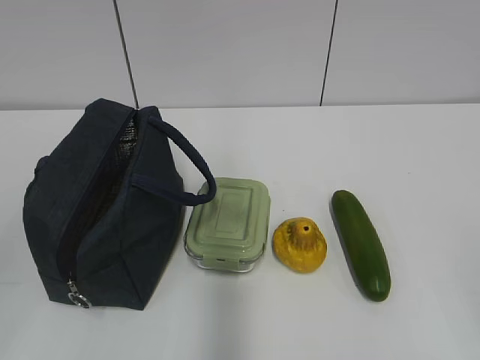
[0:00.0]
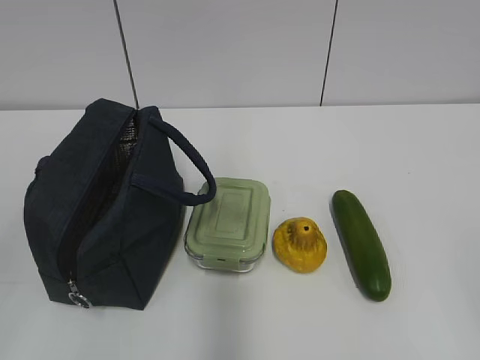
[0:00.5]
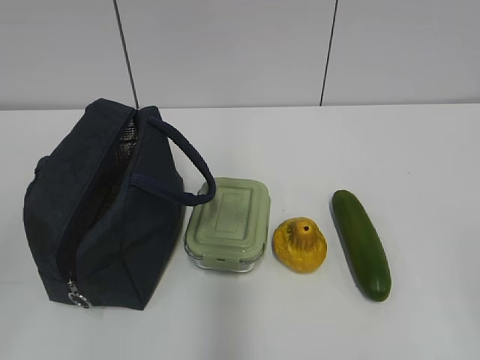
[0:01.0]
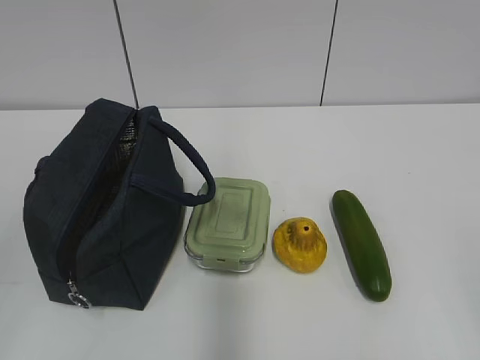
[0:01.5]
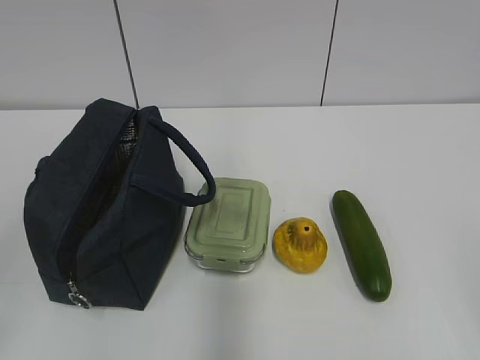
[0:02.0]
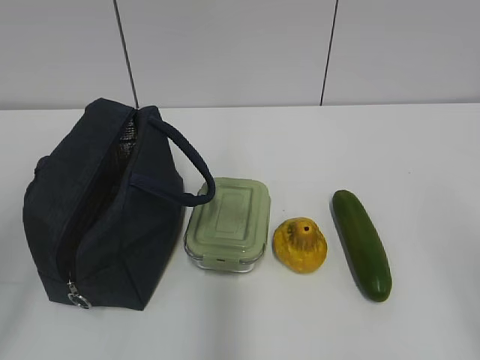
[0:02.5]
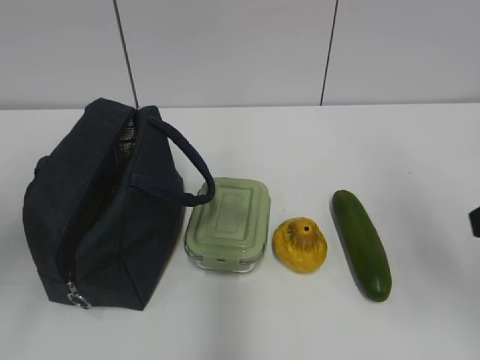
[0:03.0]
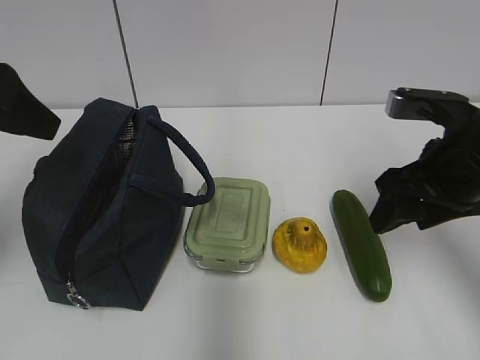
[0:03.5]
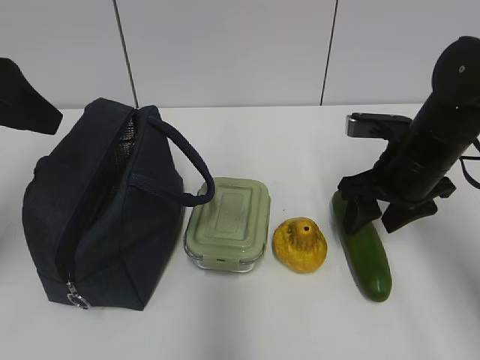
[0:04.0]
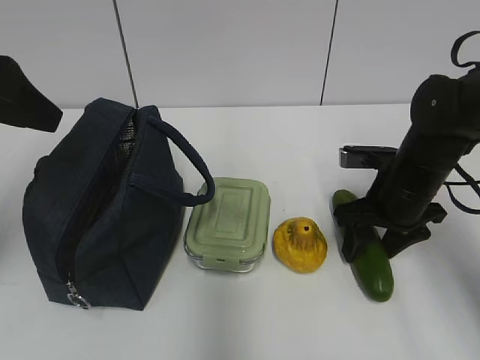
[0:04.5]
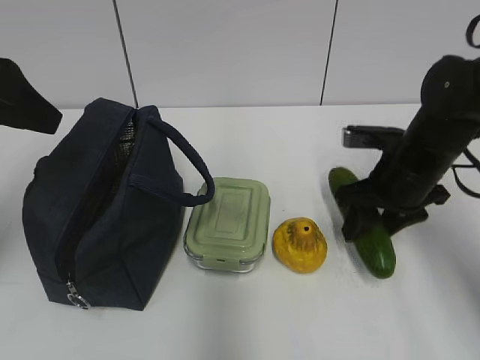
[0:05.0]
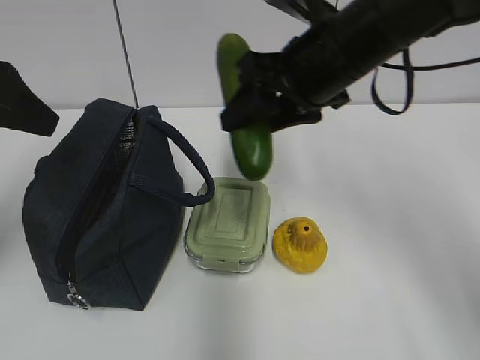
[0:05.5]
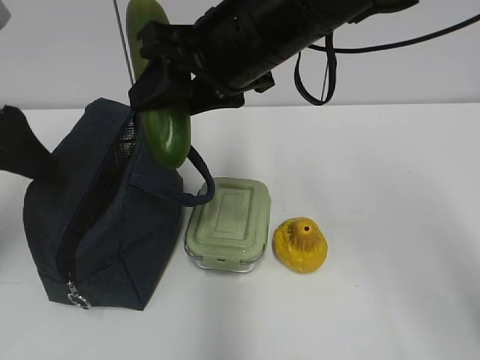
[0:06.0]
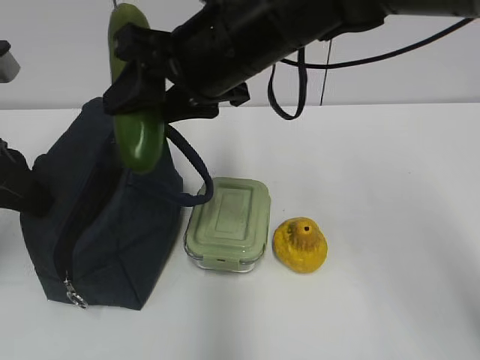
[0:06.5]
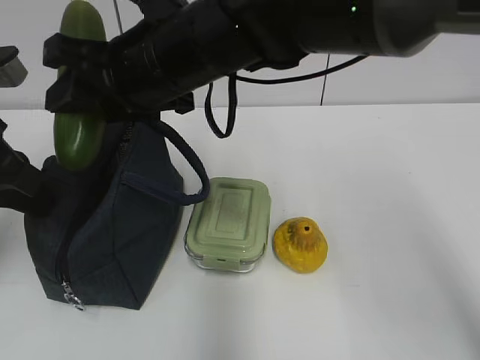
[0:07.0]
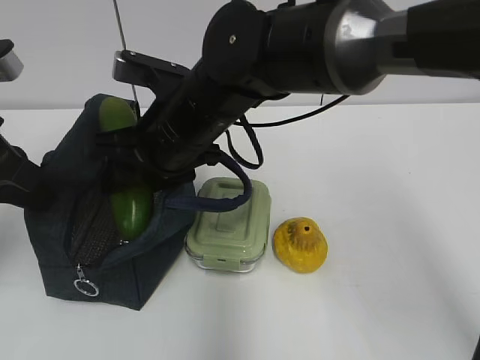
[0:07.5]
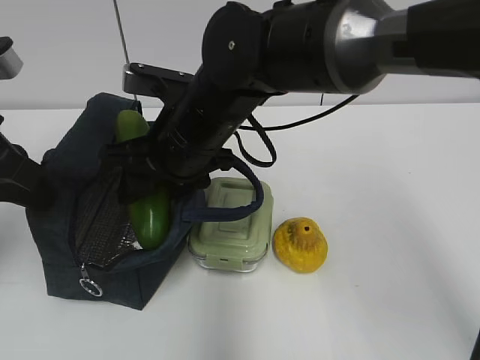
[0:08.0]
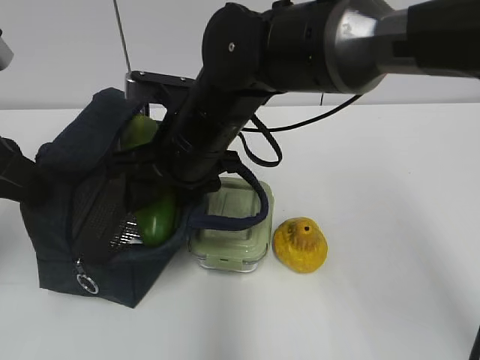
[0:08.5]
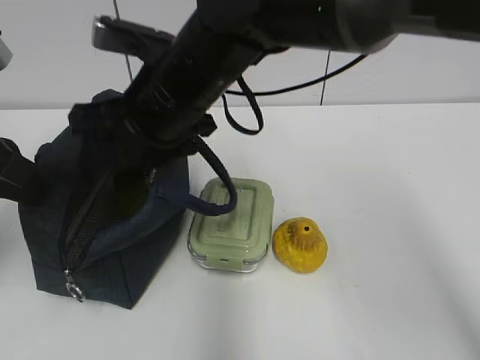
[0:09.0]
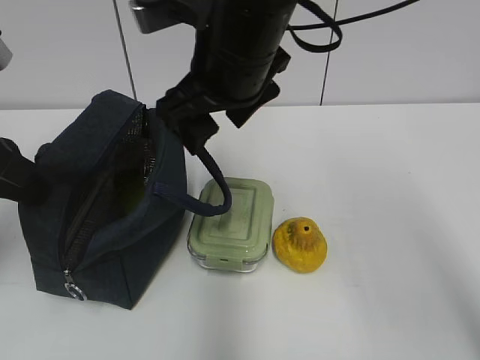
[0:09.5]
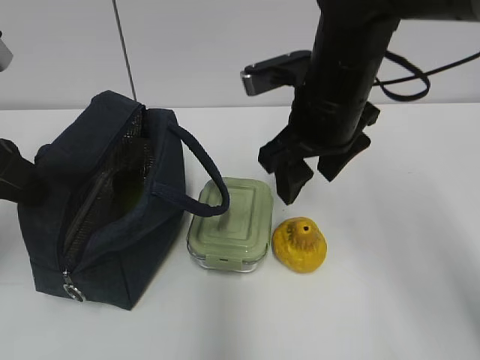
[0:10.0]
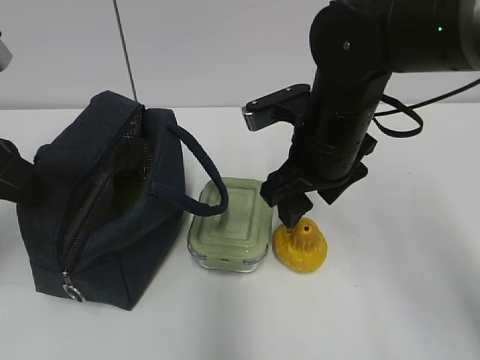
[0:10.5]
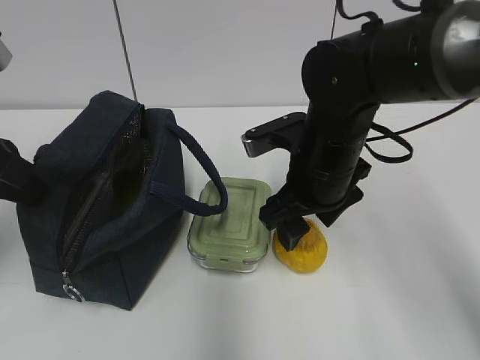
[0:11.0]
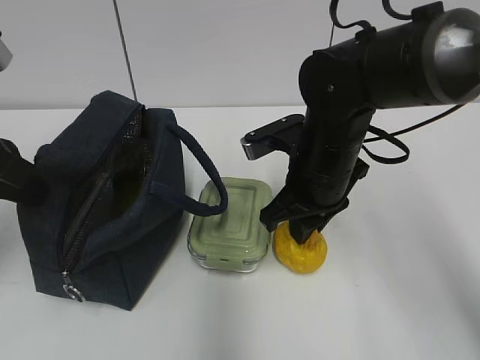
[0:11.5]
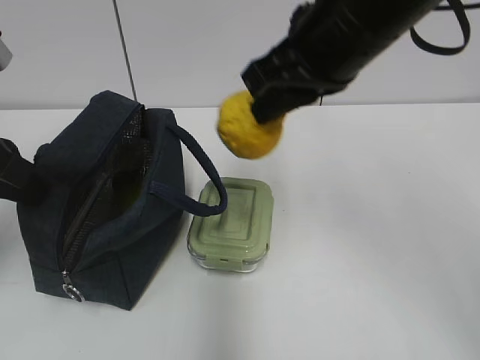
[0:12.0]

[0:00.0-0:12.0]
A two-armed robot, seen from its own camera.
Step, 0.0 to 4.5 s: Grab the cucumber with your right hand.
Step, 5.0 to 7.0 s: Grab the lunch bag with your right hand.
Step, 7.5 to 8.5 s: Place it into the bag with your right hand.
Step, 9.5 to 11.0 s: Grab the pear with your right hand.
2.0 to 4.0 s: Both grippers travel together forward, about 30 cm.
4.0 to 6.0 s: The right gripper travels to the left and upward by about 25 cm.
6.0 to 8.0 s: The right gripper is displaced downward and to the left by some 10 cm. The left gripper closes its fingers.
8.0 to 10.0 s: The right gripper heads to the right, covering roughly 10 cm.
10.0 to 12.0 s: The right gripper is displaced upward by about 10 cm, and closes up.

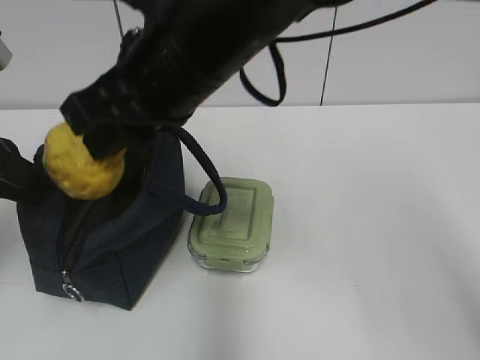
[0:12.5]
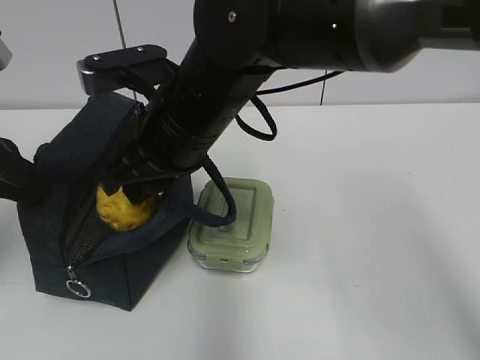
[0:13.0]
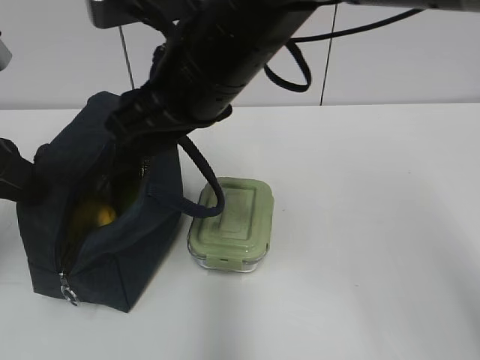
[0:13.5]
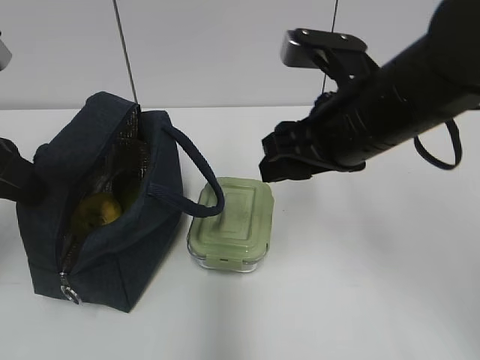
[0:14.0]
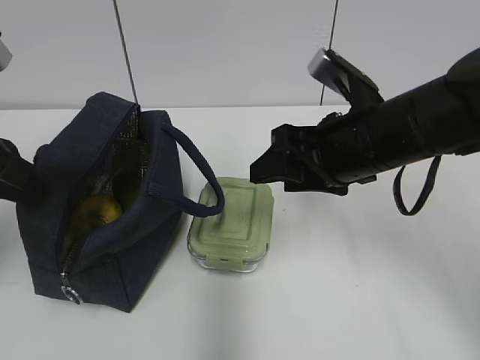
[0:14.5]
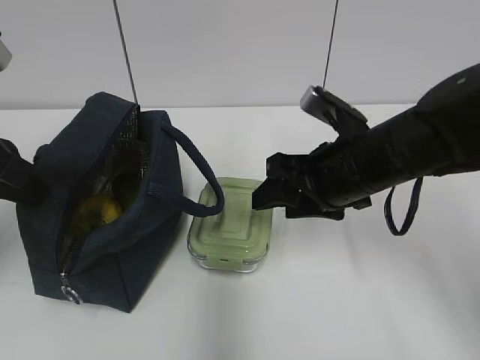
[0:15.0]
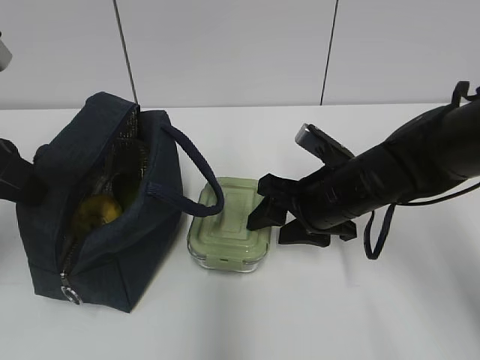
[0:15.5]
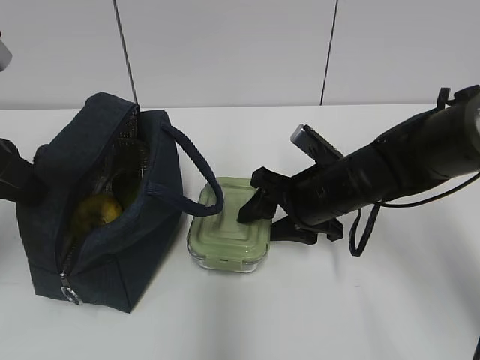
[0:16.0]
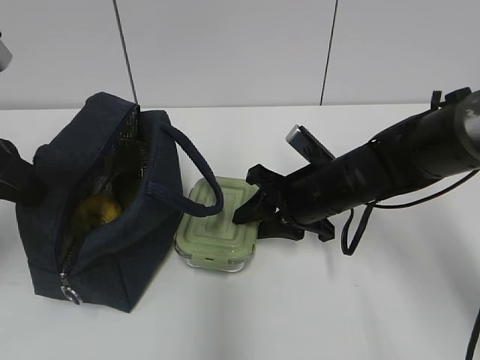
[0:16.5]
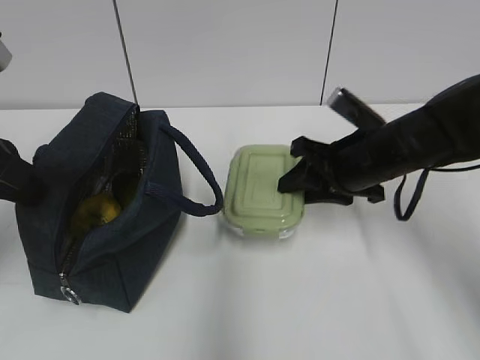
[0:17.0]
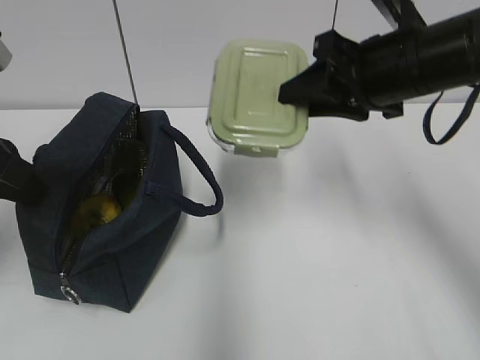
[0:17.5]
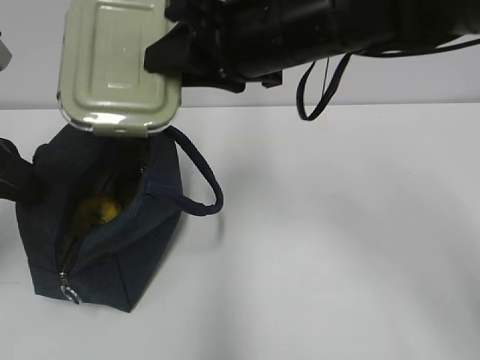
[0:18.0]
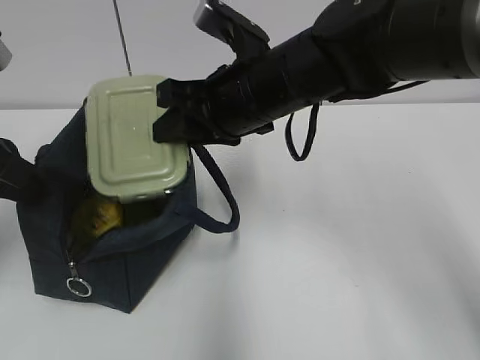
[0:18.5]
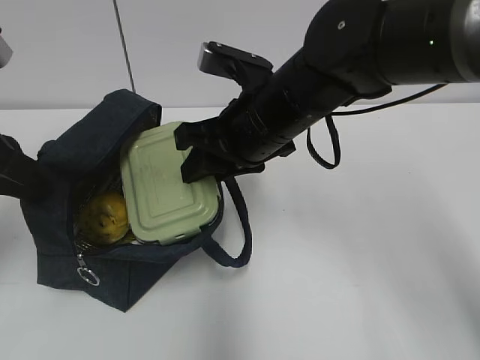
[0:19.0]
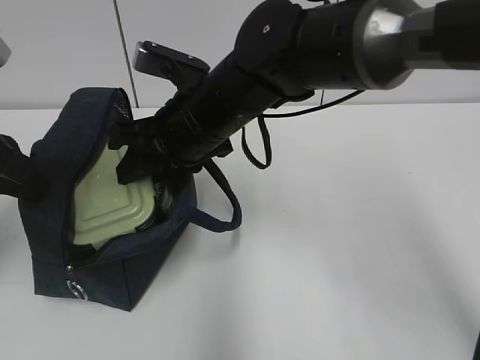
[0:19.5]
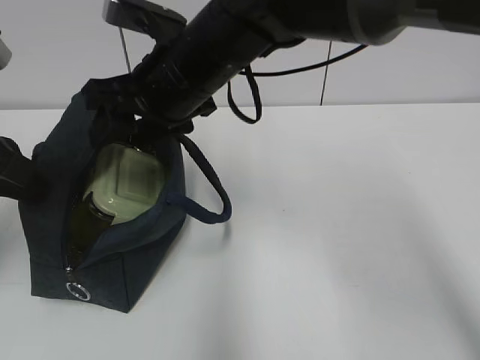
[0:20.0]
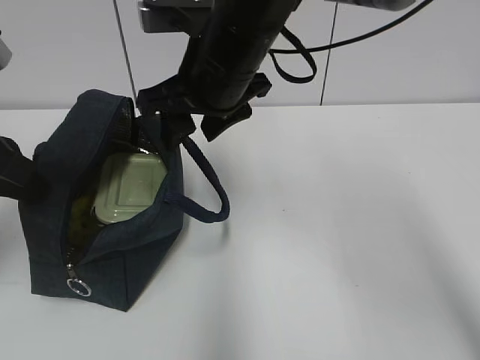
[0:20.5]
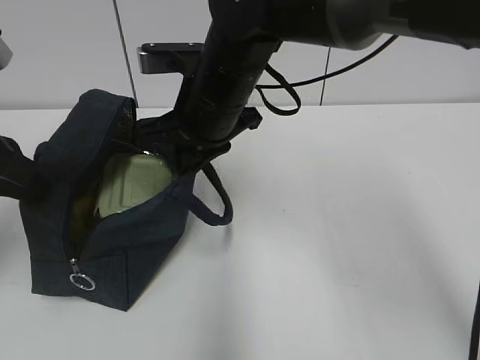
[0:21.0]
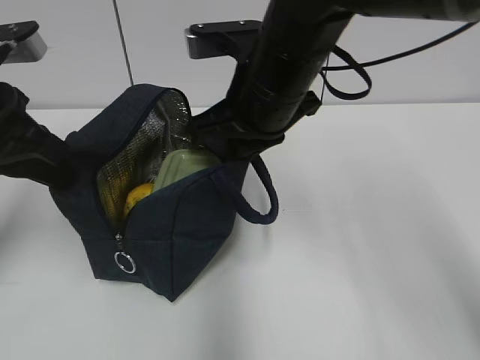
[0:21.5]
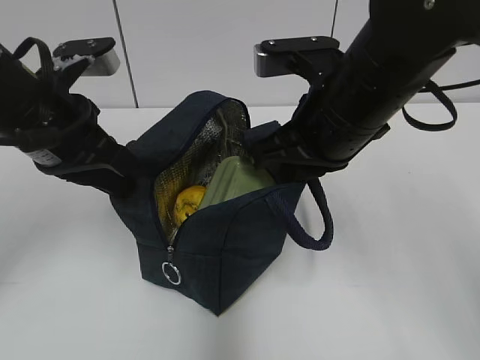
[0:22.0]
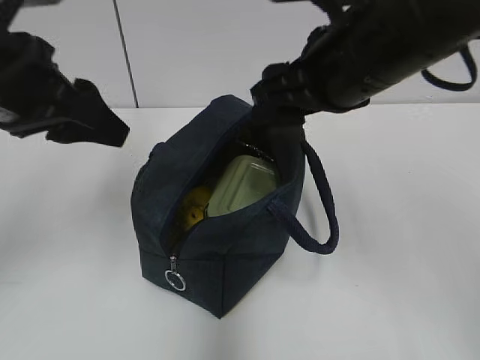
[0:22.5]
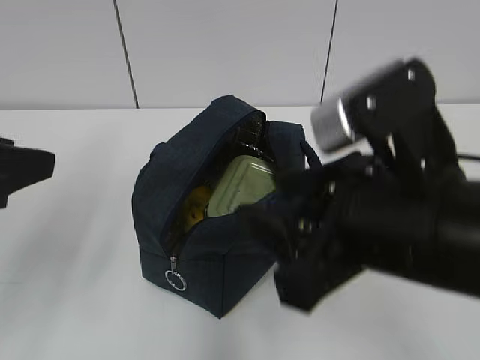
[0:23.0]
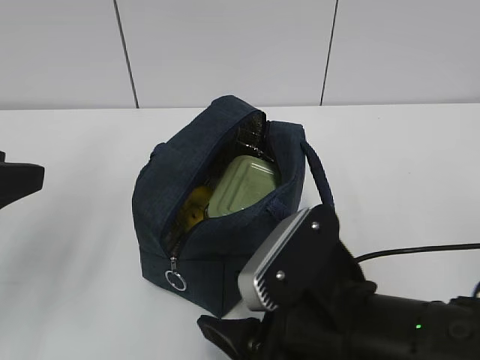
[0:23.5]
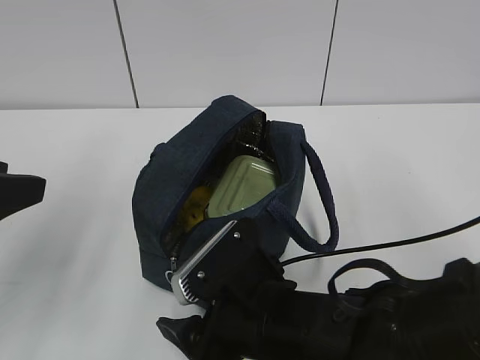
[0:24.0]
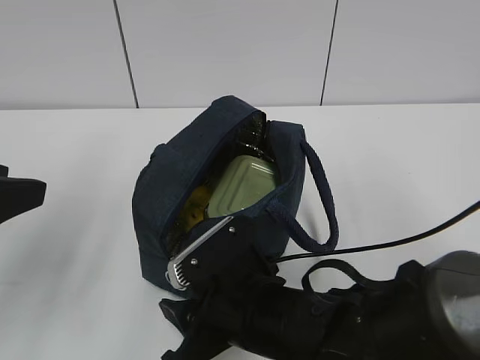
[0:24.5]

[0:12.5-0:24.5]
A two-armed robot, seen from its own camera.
Step, 14.0 to 16.5 s: Grab the lunch box with your right hand.
Step, 17.0 to 20.0 s: Place it into the bag with your right hand.
Step, 20.5 to 21.0 s: Grab the lunch bag with your right hand.
12.5 to 14.5 s: The right gripper goes approximately 15 cm to the right and downward, and opens its fingers.
14.5 to 16.5 s: The right gripper travels downward by about 10 cm.
16.5 to 18.5 s: The right gripper goes some 15 cm upward and to the left.
18.5 to 20.5 s: The right gripper opens its fingers.
20.5 to 22.5 s: The right gripper goes approximately 10 cm to the right and backward, and closes, then opens again. Meanwhile the left gripper shifts about 5 cm to the right, and opens up.
22.5 to 24.5 s: The left gripper moves backward, approximately 10 cm. The right gripper is displaced downward and to the left by approximately 20 cm.

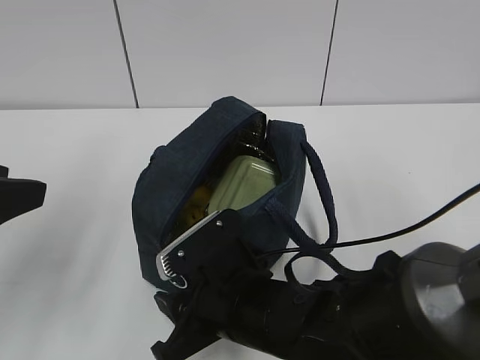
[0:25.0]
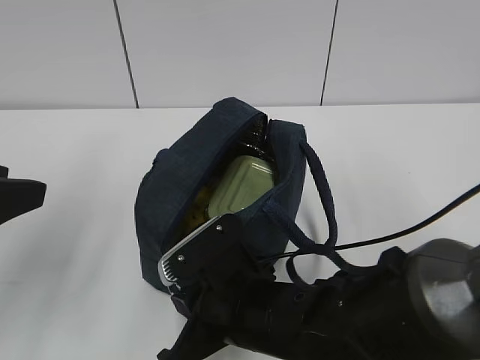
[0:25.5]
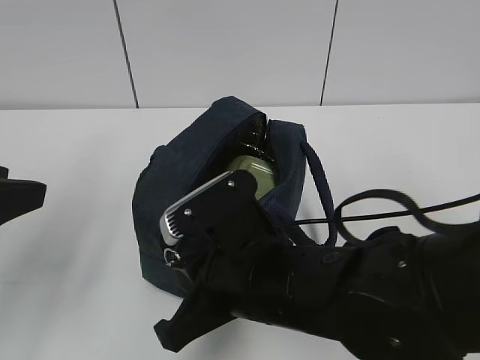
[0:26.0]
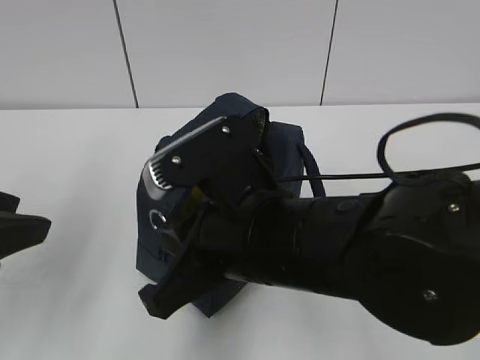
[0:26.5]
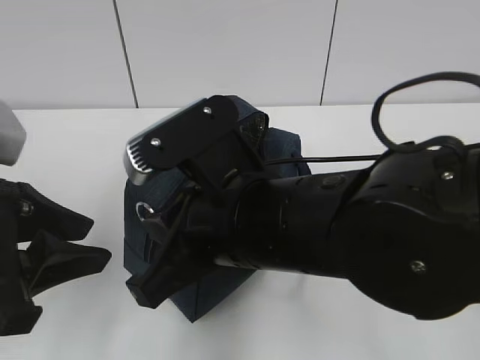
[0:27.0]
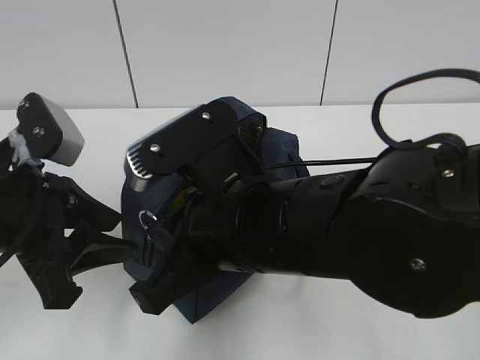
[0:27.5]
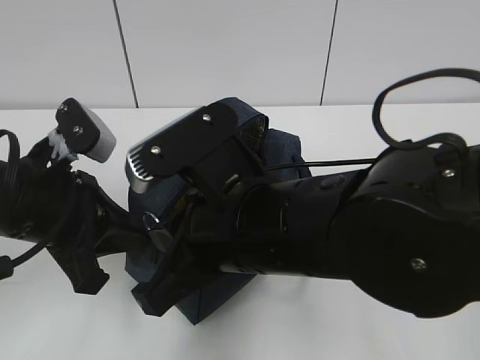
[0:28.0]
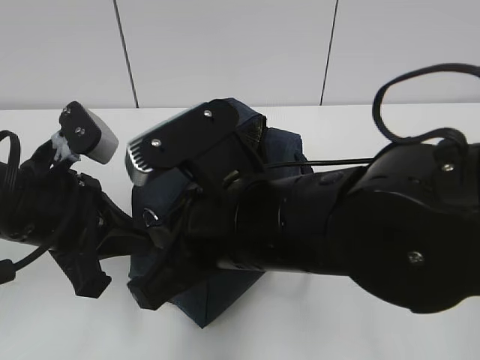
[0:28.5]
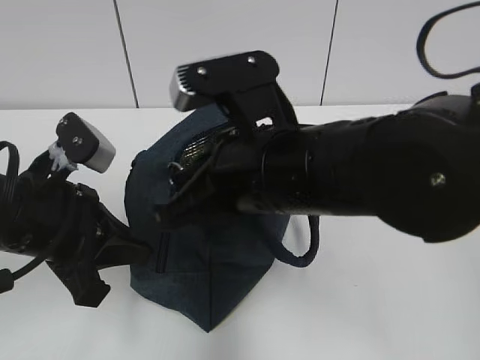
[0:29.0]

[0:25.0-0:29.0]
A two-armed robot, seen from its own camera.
Step, 26.0 to 28.5 s: Grab the lunch bag with your left hand.
25.0 to 27.0 s: The right gripper goes some 10 cm upward, and closes up, while the left gripper moves about 5 cm.
27.0 to 29.0 s: The left gripper travels forward by some 5 cm, and closes.
